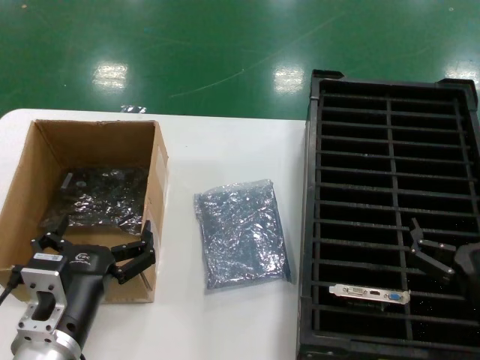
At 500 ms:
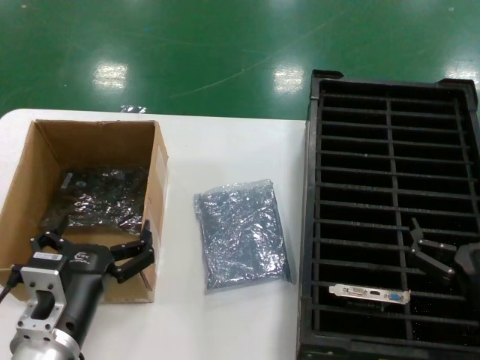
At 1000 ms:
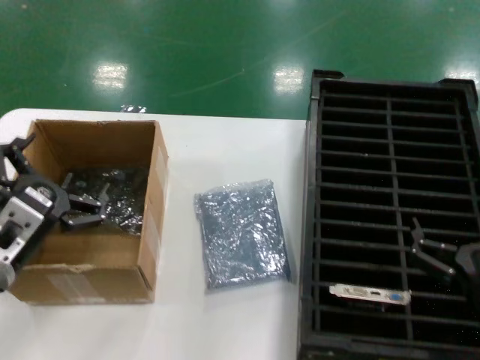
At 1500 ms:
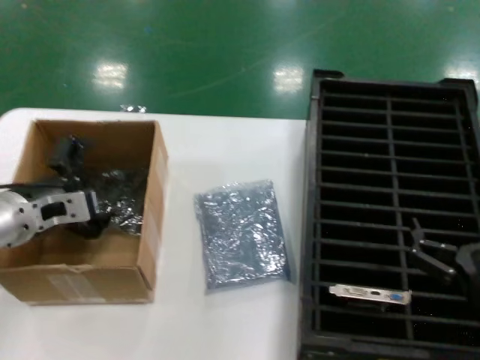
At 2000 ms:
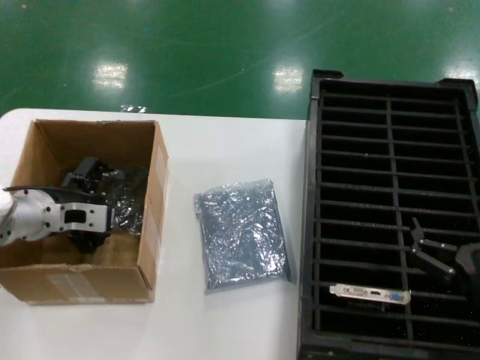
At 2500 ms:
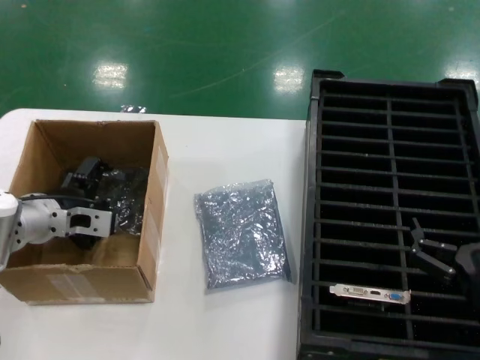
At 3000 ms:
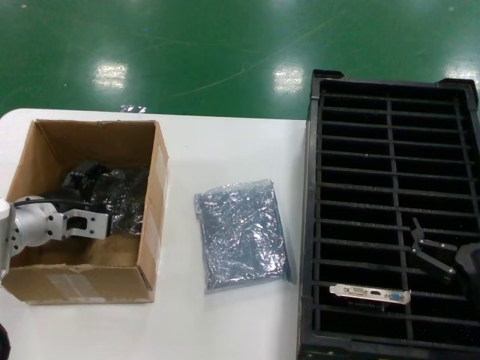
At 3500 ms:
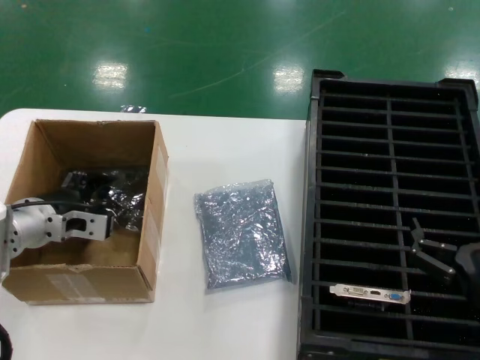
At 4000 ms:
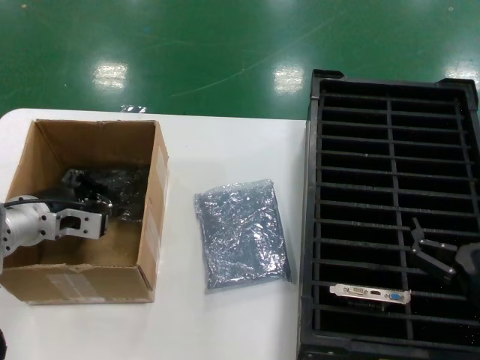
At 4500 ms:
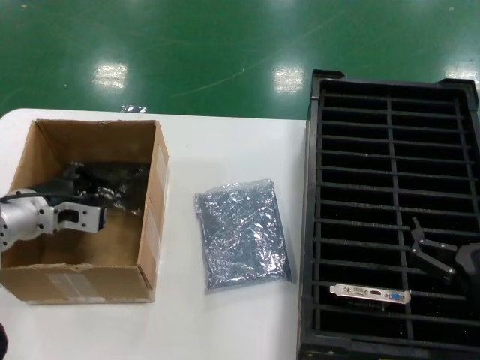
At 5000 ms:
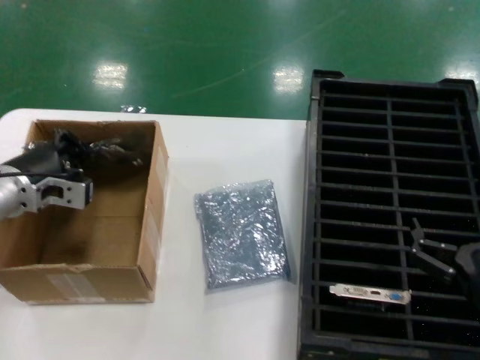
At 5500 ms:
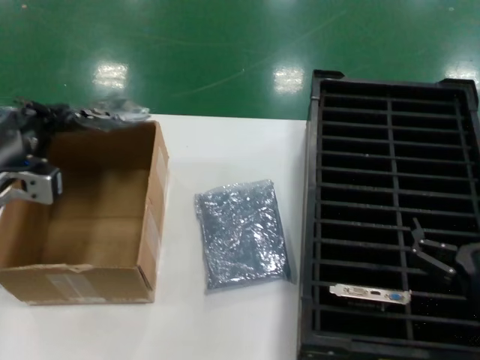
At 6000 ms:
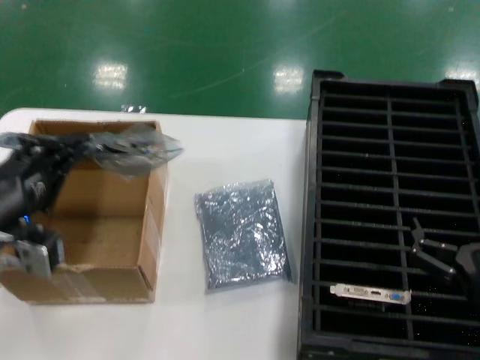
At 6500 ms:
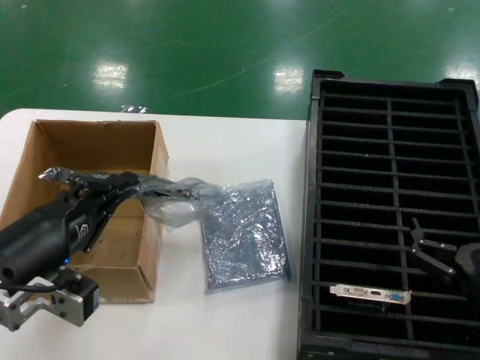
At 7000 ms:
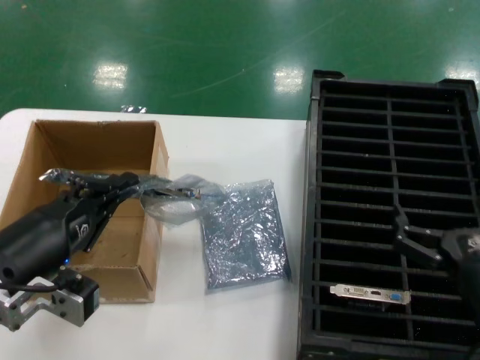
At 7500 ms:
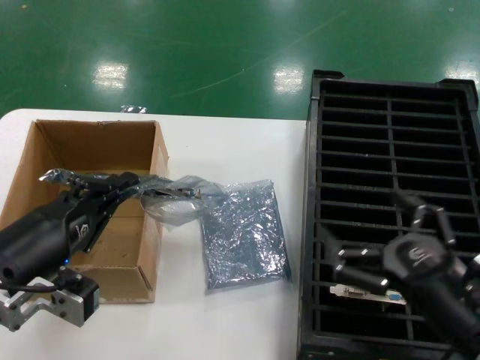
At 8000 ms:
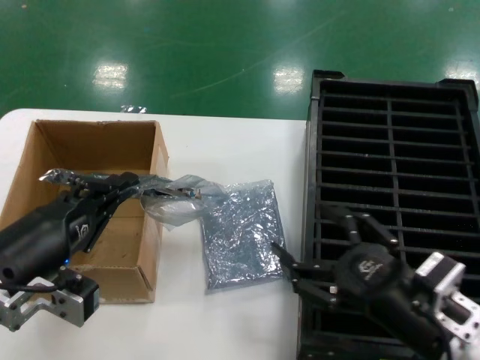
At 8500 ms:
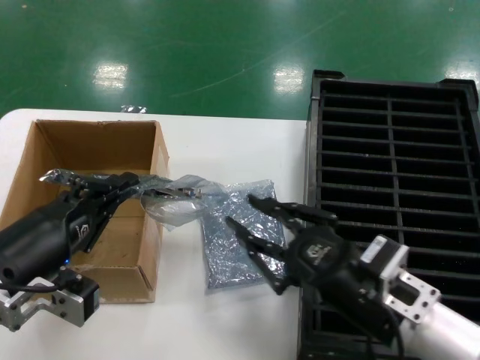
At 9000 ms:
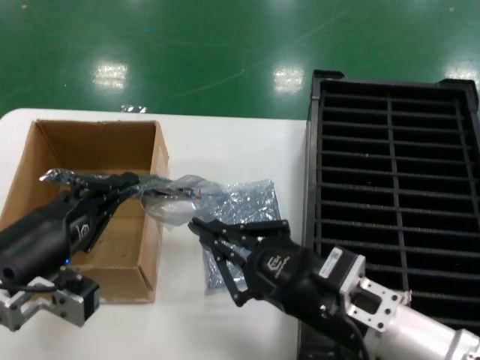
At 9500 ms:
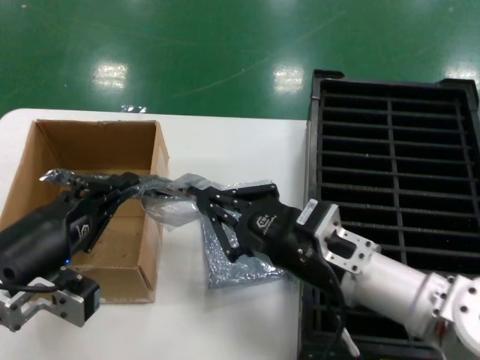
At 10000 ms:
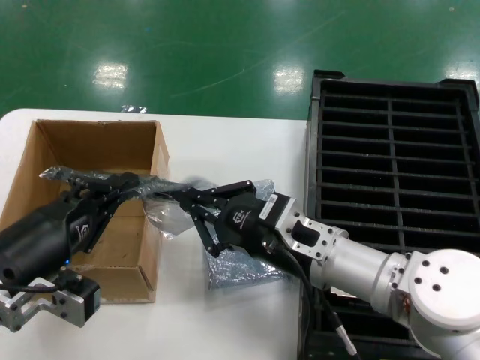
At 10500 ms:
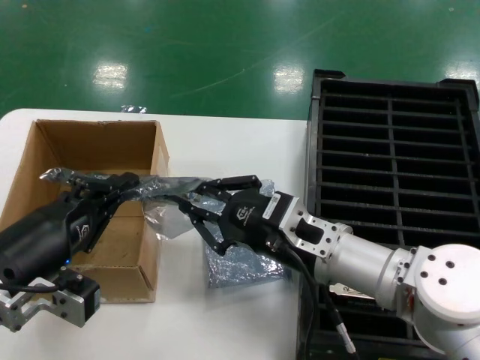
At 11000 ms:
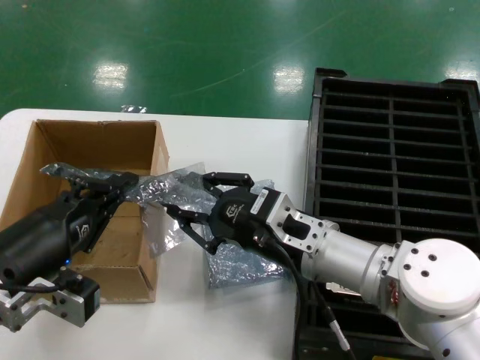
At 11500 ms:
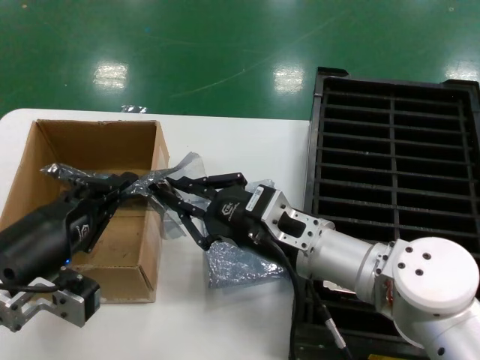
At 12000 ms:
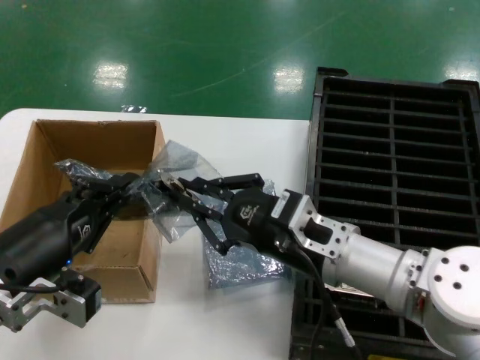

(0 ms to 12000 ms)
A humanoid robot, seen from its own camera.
Task of the whole recording: take out graphics card from box remove packaging put into black container.
Step, 0 ms - 4000 ms: Grasp the bag.
Step, 4500 ms - 6500 ms: Lift the bag.
0 ms - 2000 ms: The left hand is displaced forward and to the left by about 25 cm.
2000 ms - 4000 ms: The hands move only a little.
4000 ms - 6000 ms: The left hand travels backward and upward by roughly 20 cm.
6000 ms - 8000 ms: The left hand changes place by some 5 cm. Meanwhile the right hand ends up roughly 5 cm from where it was.
8000 ms - 10000 ms: The right hand travels to the left and forward by roughly 15 cm.
10000 ms - 12000 ms: The hands move only a little.

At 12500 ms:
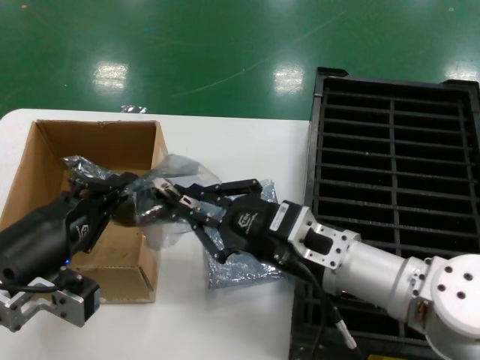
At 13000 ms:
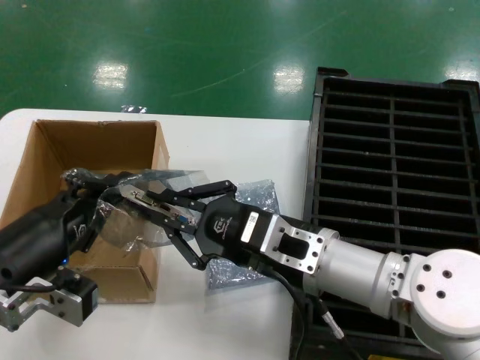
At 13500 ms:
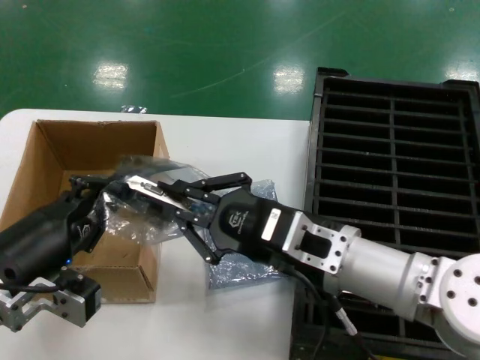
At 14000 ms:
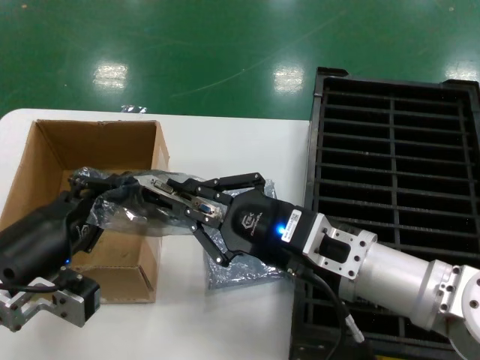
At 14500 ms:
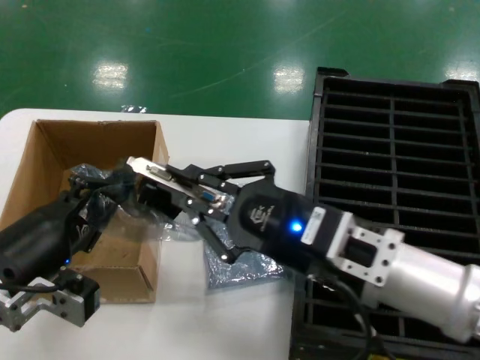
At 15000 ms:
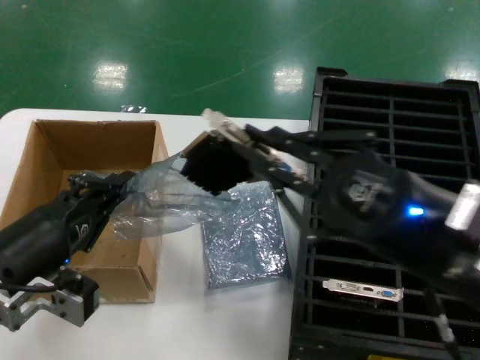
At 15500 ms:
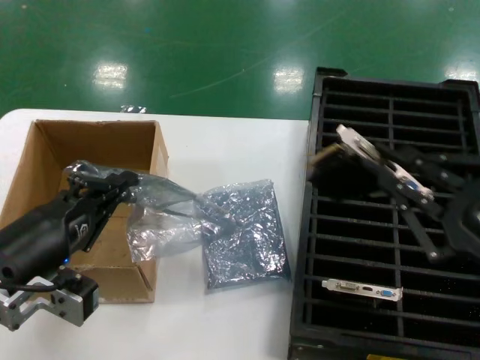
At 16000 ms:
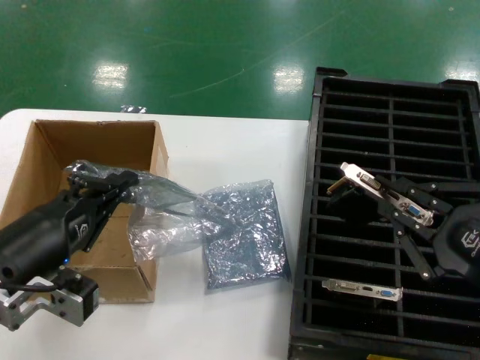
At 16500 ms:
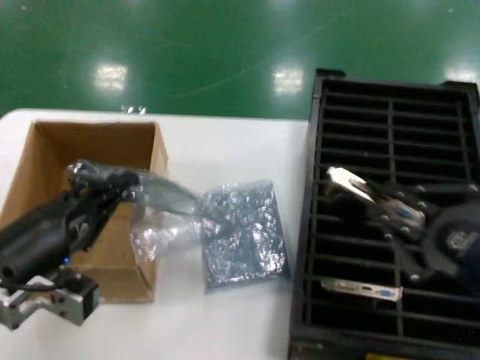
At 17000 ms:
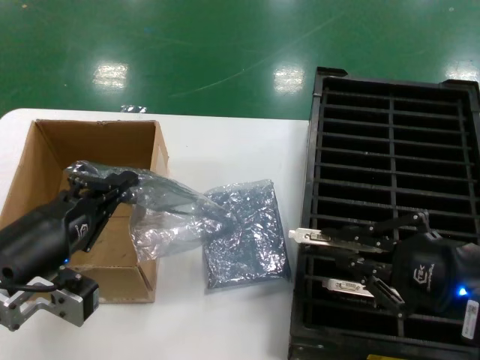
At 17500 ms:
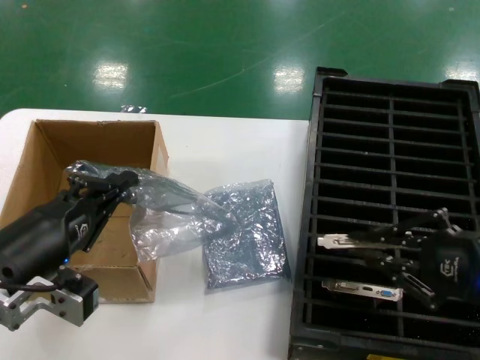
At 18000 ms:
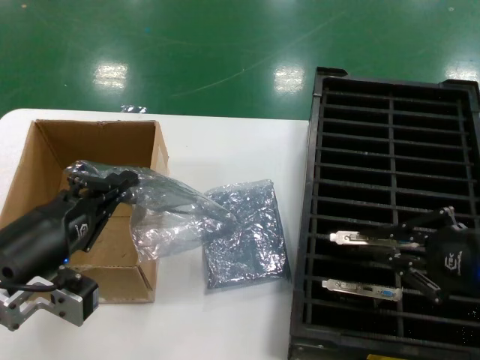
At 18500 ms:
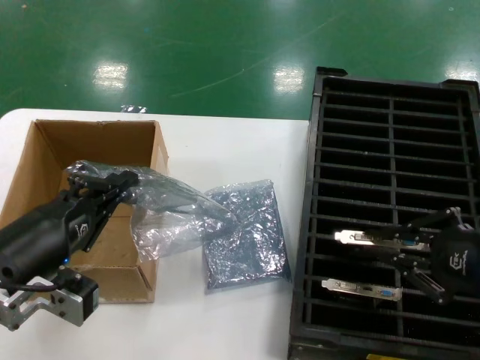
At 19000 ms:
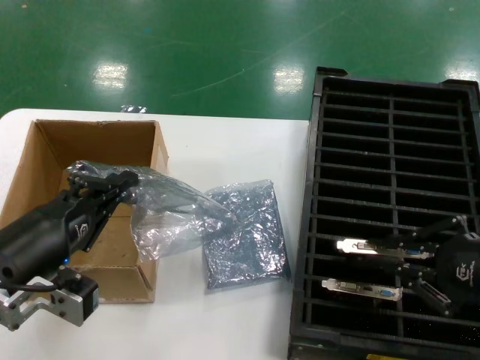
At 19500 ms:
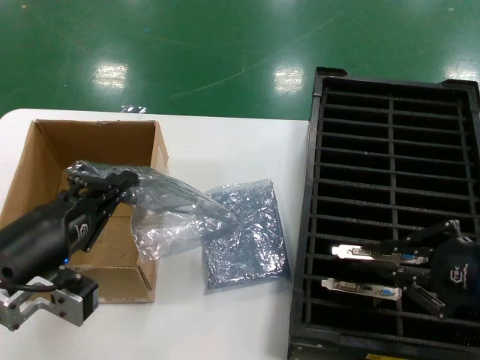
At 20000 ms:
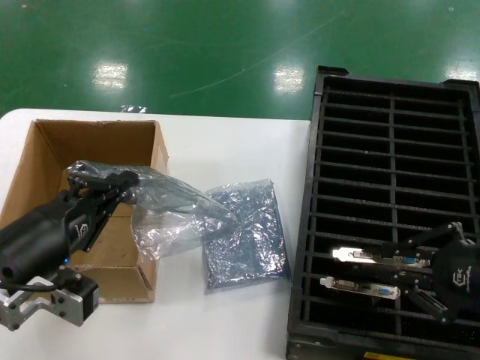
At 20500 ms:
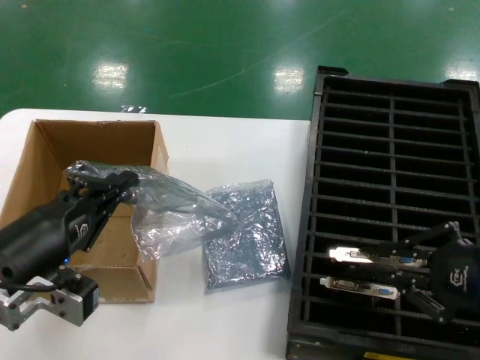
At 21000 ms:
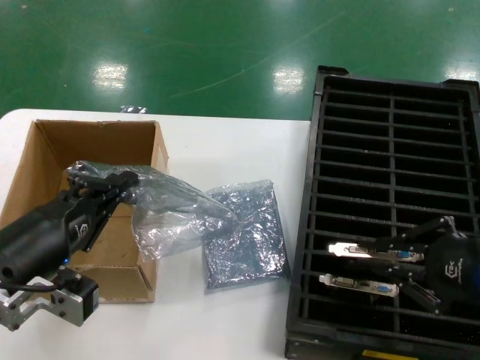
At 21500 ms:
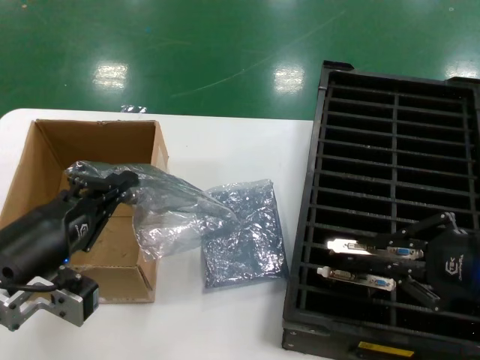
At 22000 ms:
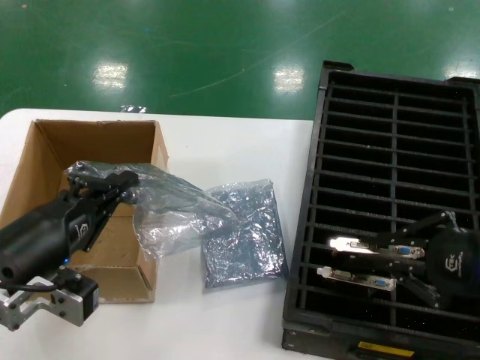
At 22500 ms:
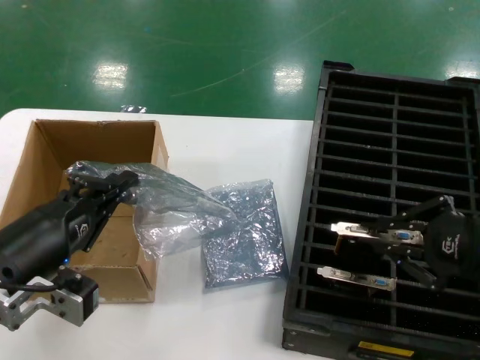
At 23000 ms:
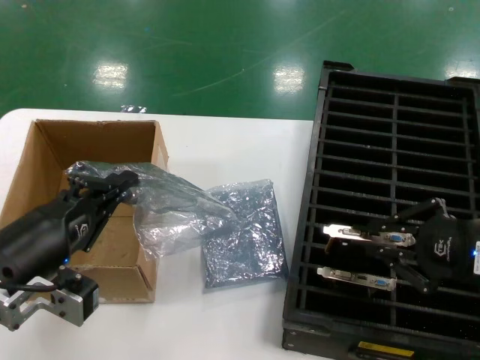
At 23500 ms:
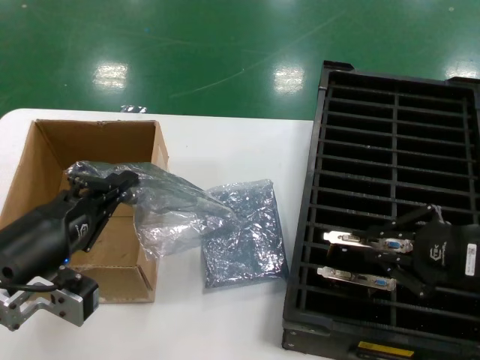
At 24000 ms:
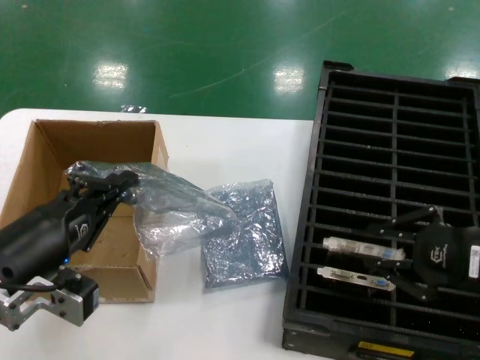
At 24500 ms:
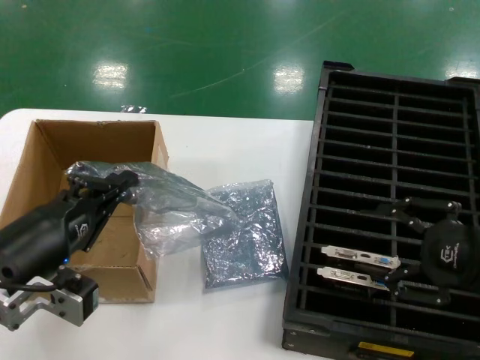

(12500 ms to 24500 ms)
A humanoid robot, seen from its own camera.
Task of the whole recording: take out graphics card from box remove packaging put into black container.
Step, 12500 ms - 15000 ms: Take out the hard disk of the bag.
Step, 15500 ms - 24000 ms: Place the hard disk in the hard disk enclosure.
12500 ms - 14500 ms: The right hand shifts about 10 cm backward and upward.
14500 ms - 16500 ms: The right hand shifts approximately 15 cm to the right and backward.
16500 ms - 18500 ms: The right hand travels forward by roughly 5 cm.
18500 ms - 24500 ms: The hands move only a little.

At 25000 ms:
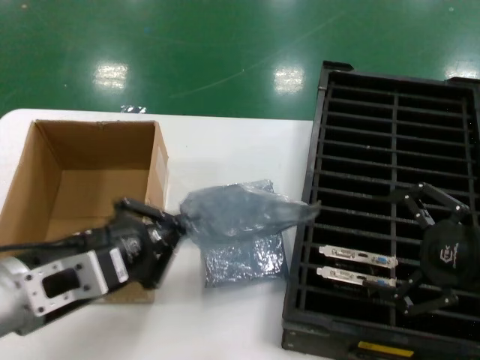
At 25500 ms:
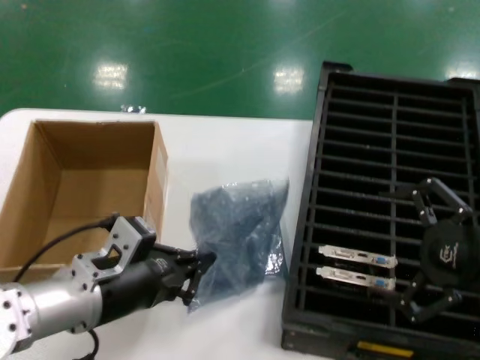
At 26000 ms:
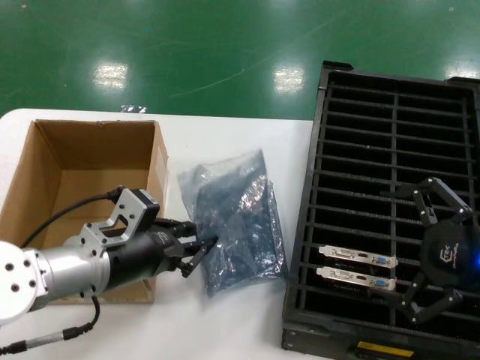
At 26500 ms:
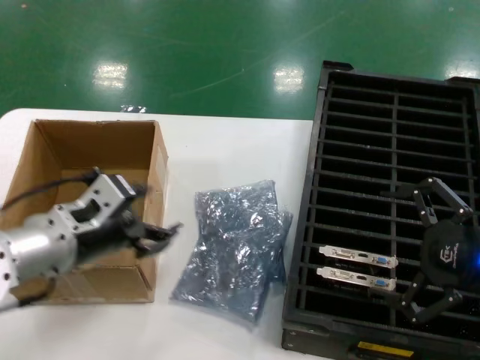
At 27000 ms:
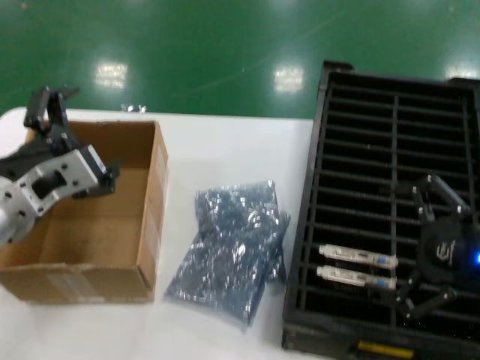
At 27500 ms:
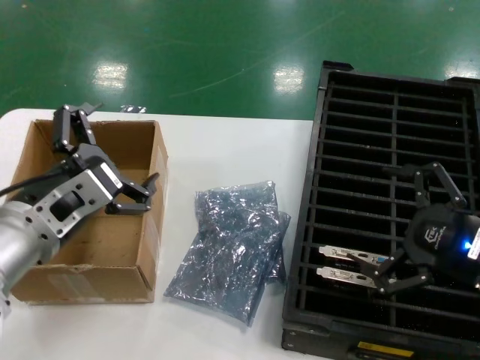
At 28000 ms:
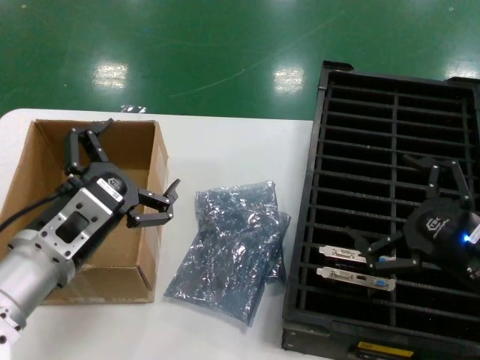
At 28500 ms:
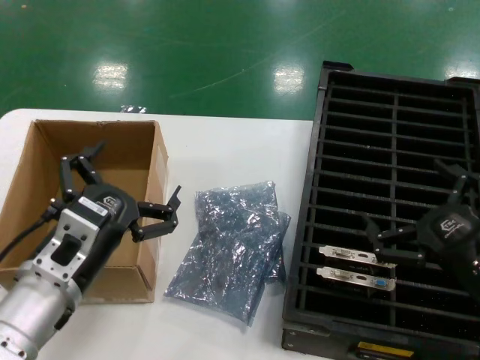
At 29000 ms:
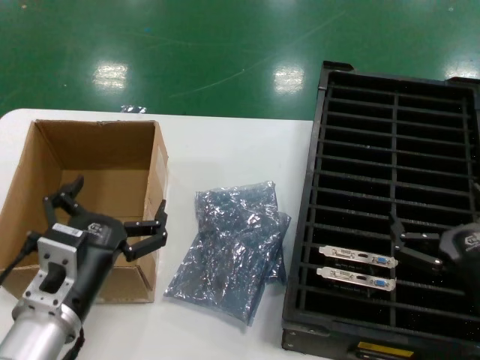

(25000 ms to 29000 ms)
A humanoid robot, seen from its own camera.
Task of the whole recording: take out graphics card from box remove packaging put into black container.
25000 ms - 27000 ms: The left hand heads forward, covering roughly 5 cm.
27000 ms - 29000 ms: Both hands travel together downward, some 15 cm.
